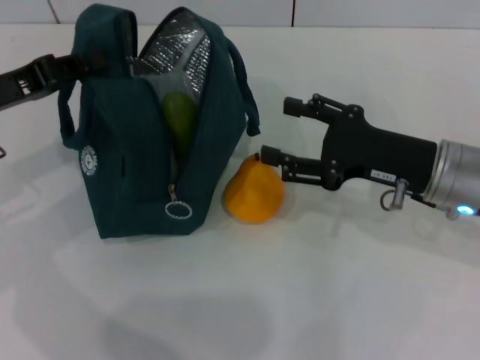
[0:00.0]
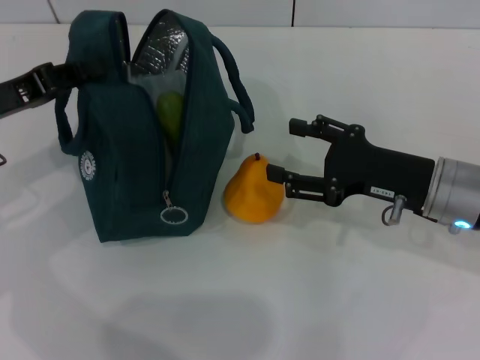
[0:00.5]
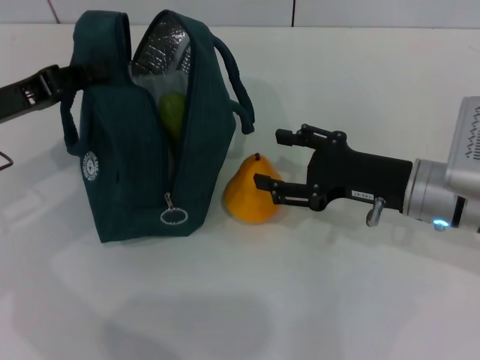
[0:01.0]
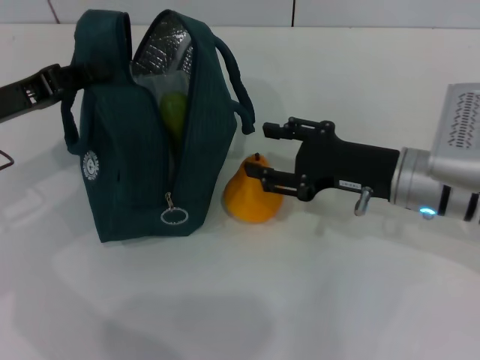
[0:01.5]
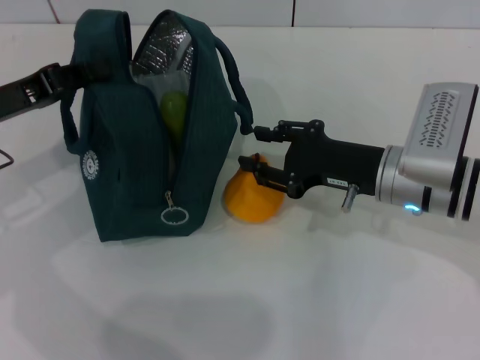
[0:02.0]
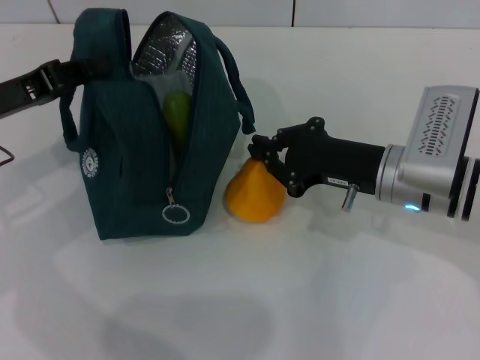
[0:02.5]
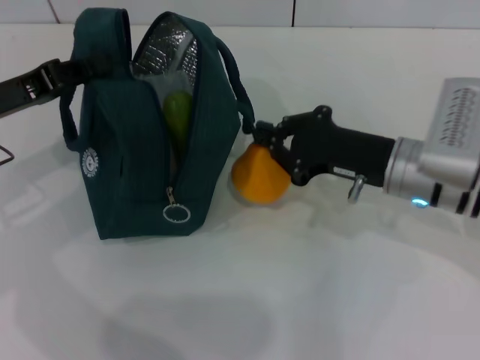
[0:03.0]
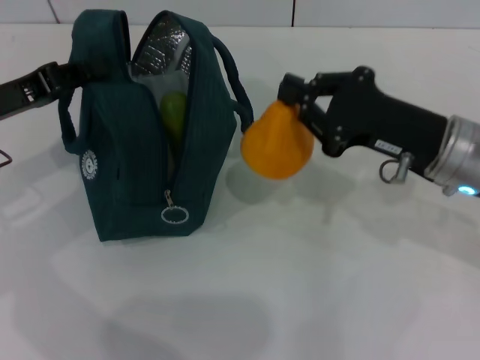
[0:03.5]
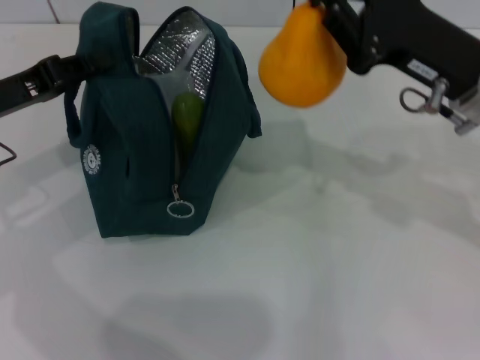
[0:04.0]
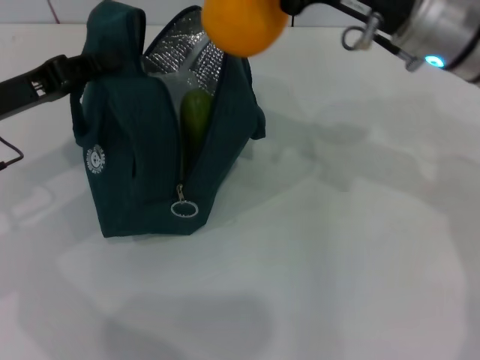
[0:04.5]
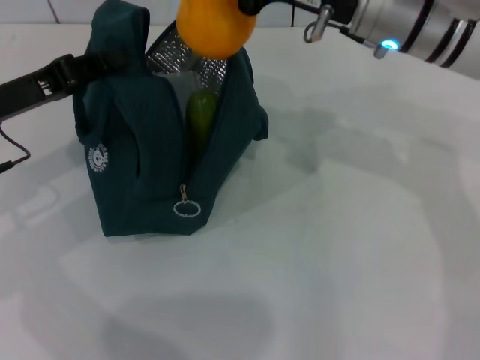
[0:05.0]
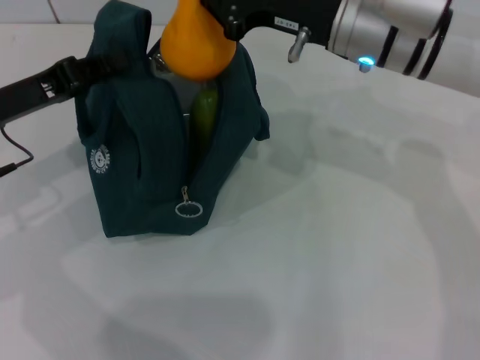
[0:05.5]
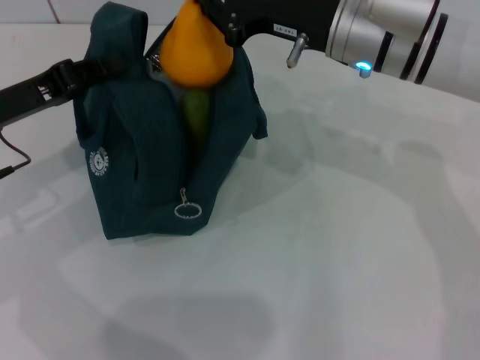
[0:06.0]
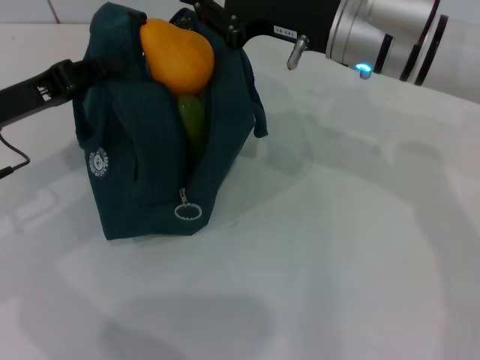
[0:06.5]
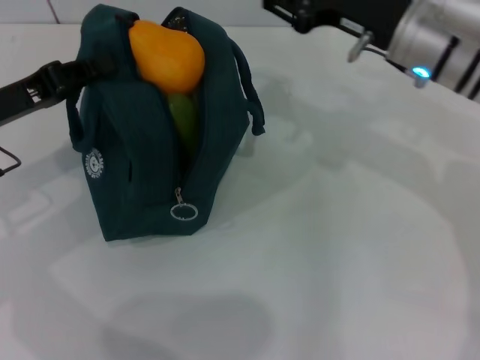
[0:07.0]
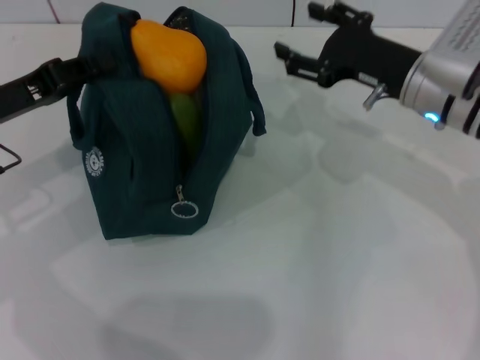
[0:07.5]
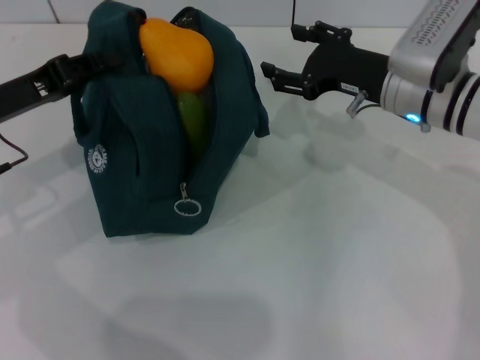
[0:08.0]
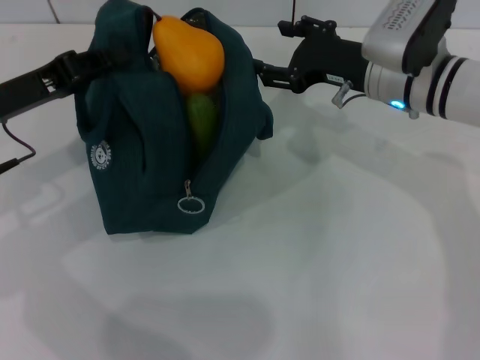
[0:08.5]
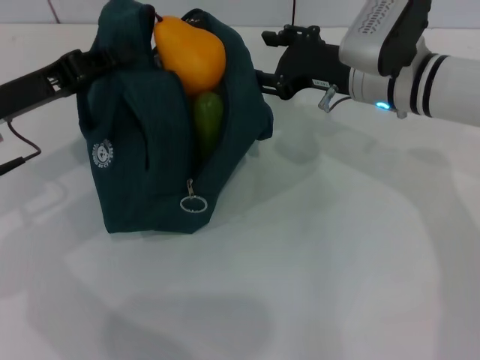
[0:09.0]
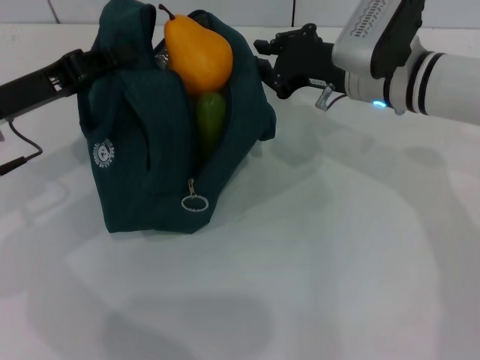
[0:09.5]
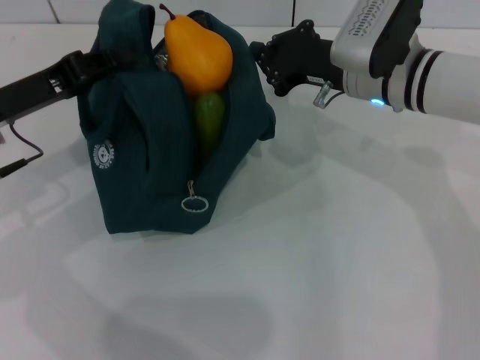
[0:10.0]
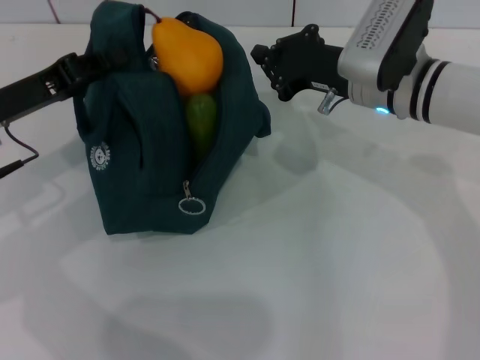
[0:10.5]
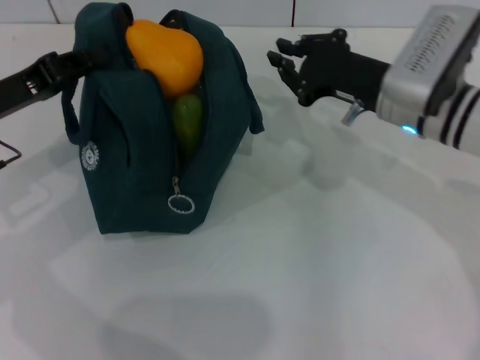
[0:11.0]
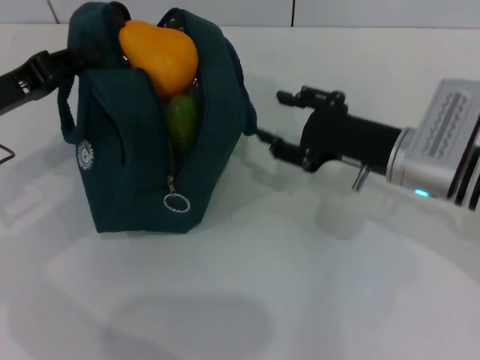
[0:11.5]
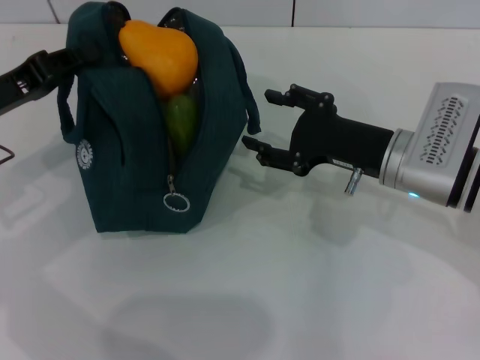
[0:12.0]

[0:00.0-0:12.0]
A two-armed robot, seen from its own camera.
Step, 0:00.0 to 0:02.5: Grab the pear with your right hand.
0:00.0 to 0:02.0: There are only small adjustments of the grippers.
0:02.0 to 0:04.0: The right gripper heads upward, covering approximately 10 cm, and closes.
0:04.0 to 0:06.0: The right gripper heads to the left and forward, covering roughly 10 cm.
0:06.0 to 0:08.0: The right gripper moves downward and to the right, about 10 cm, and opens.
0:08.0 to 0:10.0: The right gripper closes.
0:10.0 to 0:12.0: The right gripper is displaced backward by approximately 10 cm, and opens up.

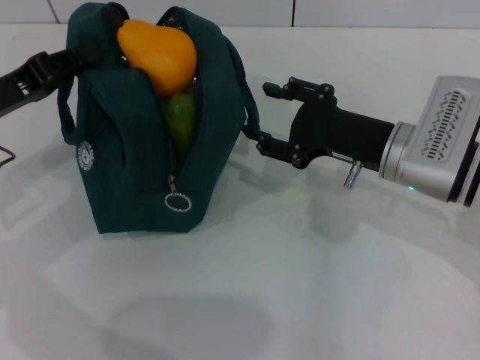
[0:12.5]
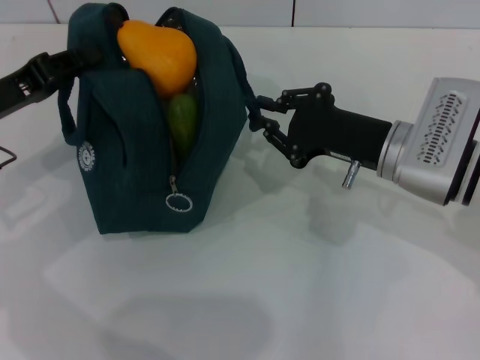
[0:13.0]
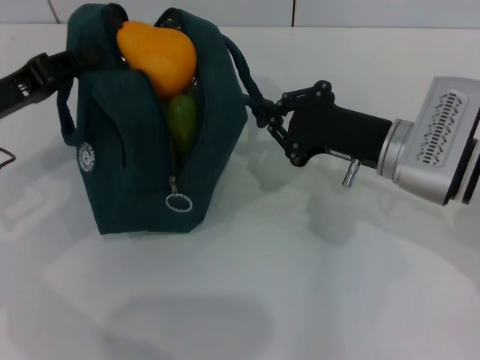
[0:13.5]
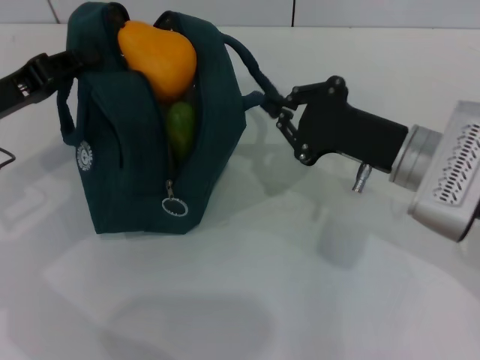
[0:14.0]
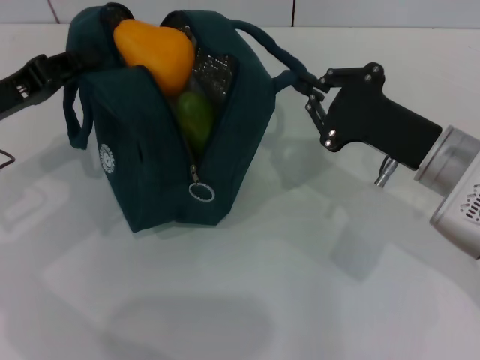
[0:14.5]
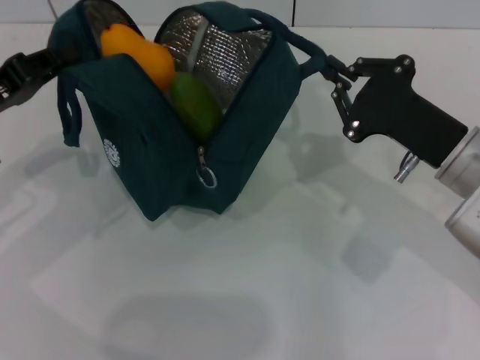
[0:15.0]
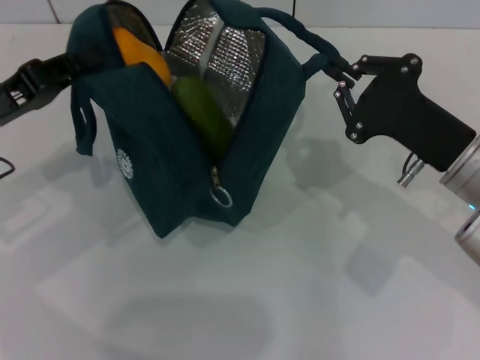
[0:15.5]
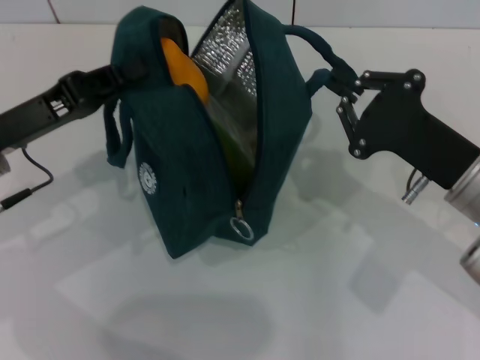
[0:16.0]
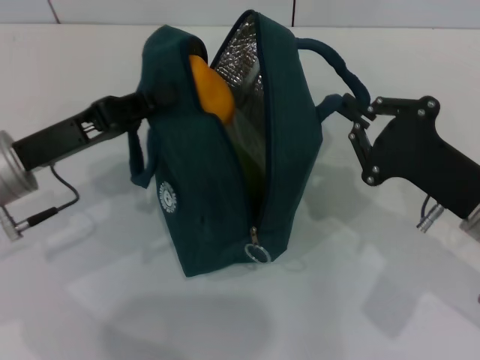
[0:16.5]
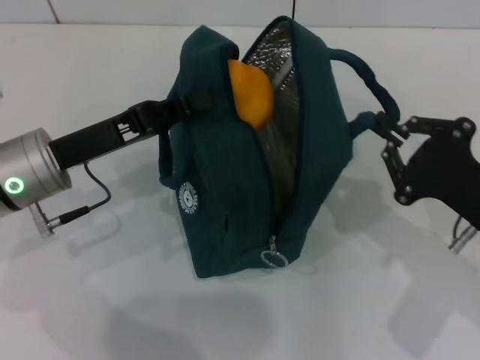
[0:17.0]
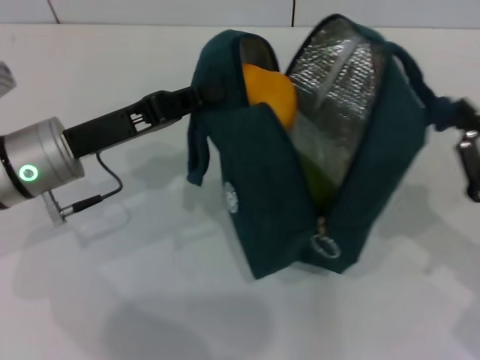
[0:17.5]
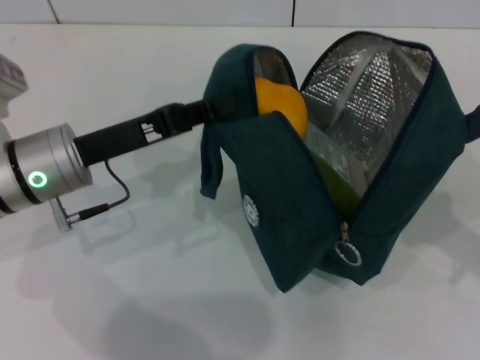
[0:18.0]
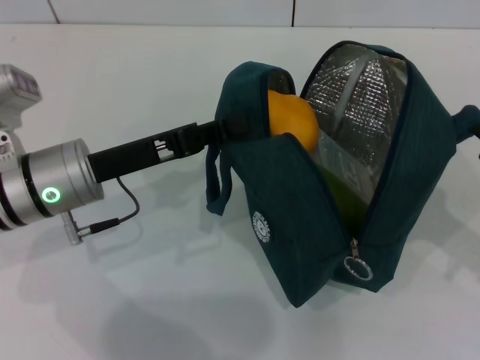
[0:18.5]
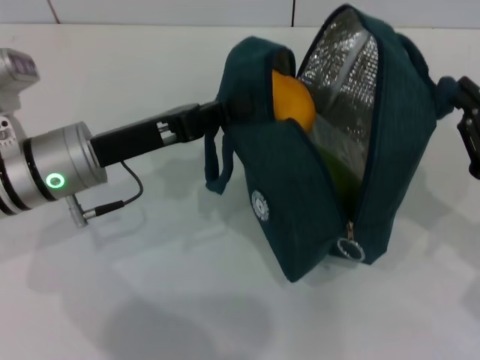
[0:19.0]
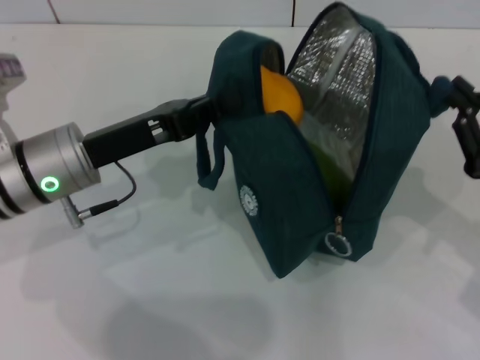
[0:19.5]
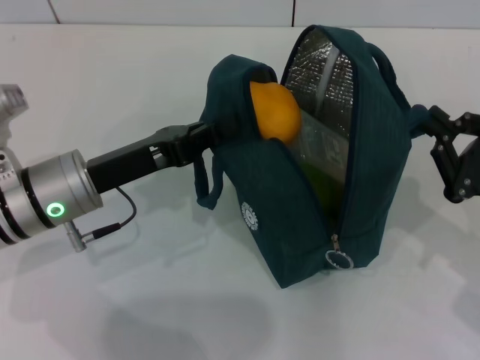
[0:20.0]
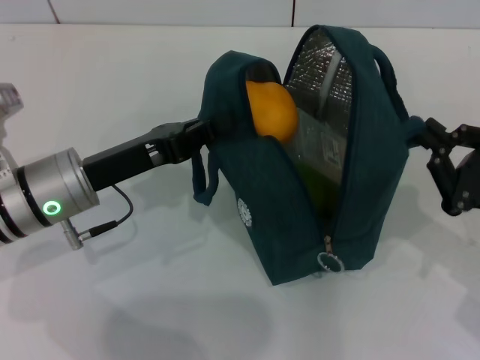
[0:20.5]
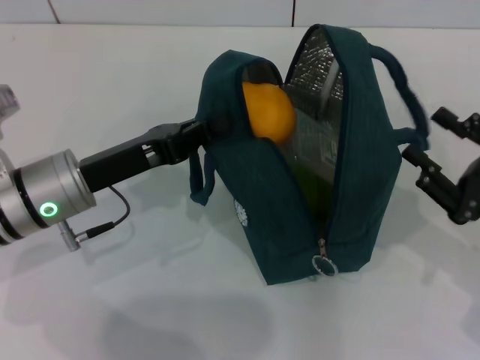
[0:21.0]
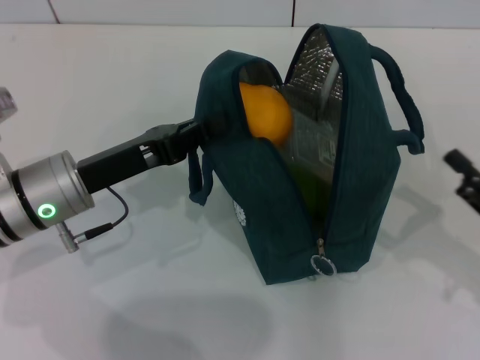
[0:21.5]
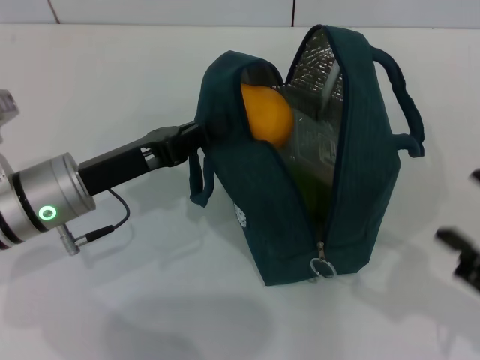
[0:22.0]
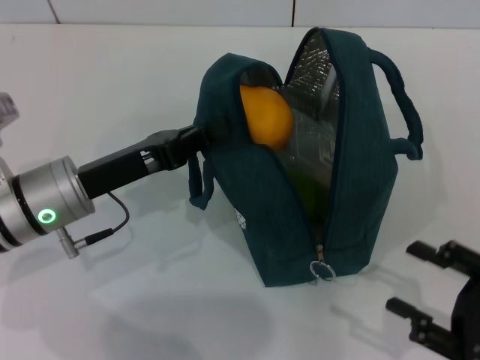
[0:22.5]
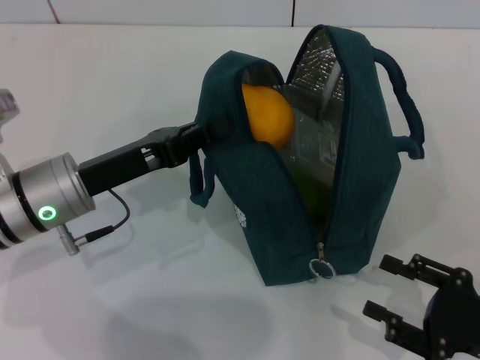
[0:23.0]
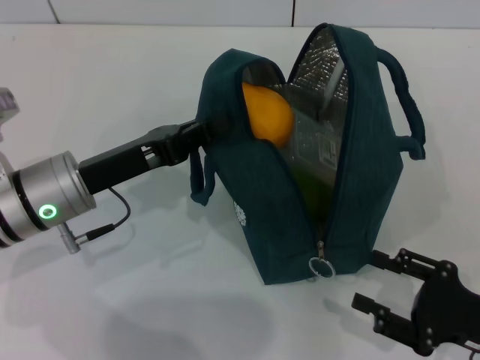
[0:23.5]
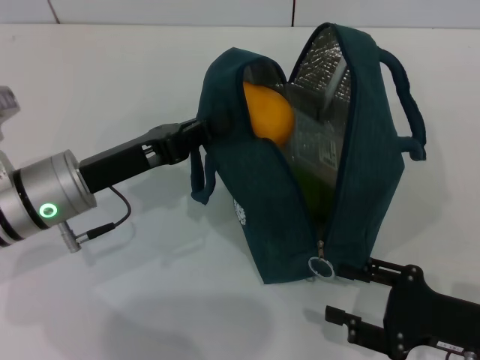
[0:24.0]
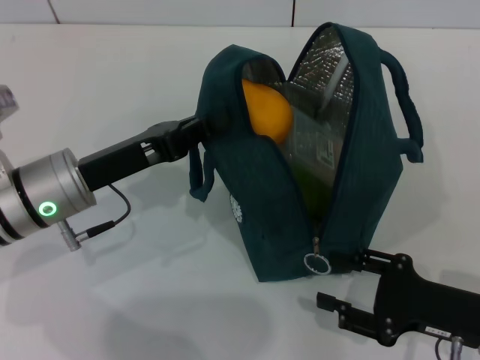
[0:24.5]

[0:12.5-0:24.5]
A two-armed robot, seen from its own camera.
Step, 0:12.5 to 0:20.5: Hold the lunch bag with your right hand.
0:12.5 to 0:14.5: The right gripper closes its fingers.
0:14.5 to 0:16.5: The left gripper travels to the right by some 5 cm. The right gripper goes roughly 5 cm backward.
0:16.5 to 0:18.5: The left gripper heads to the right, covering about 5 cm. Meanwhile the right gripper travels to the right by approximately 10 cm.
0:20.5 to 0:22.5: The right gripper shifts roughly 10 cm backward, and opens up.
0:22.5 to 0:24.5: The right gripper moves approximately 5 cm.

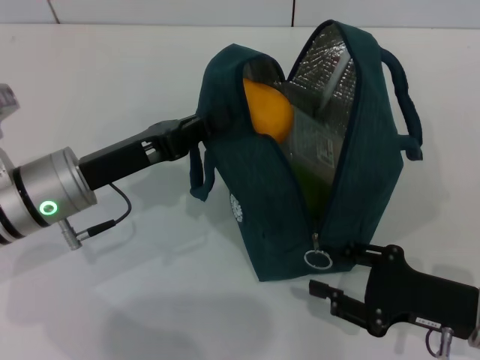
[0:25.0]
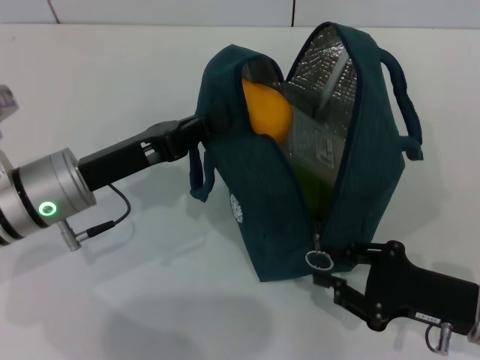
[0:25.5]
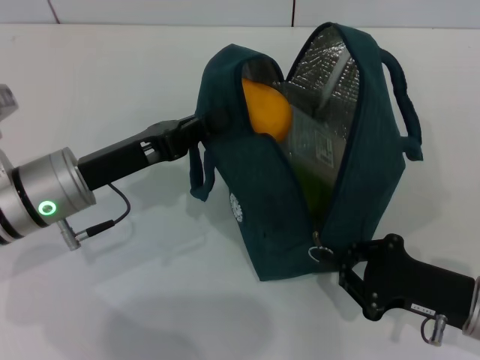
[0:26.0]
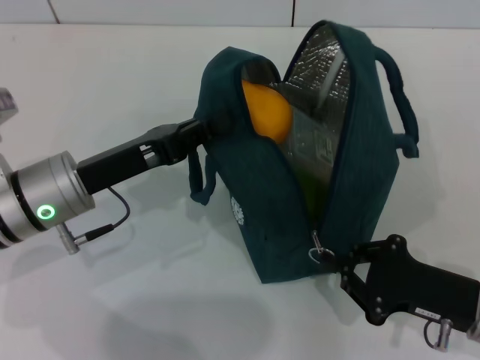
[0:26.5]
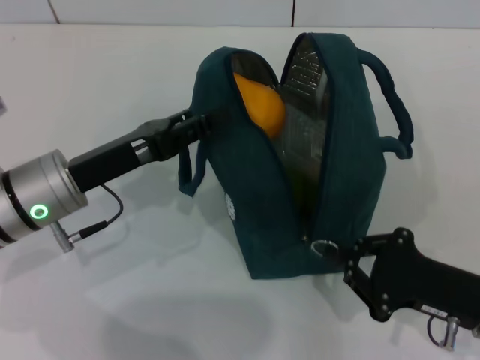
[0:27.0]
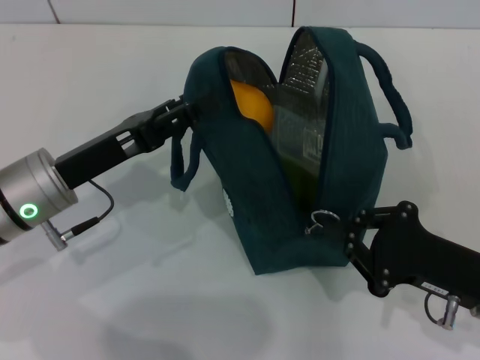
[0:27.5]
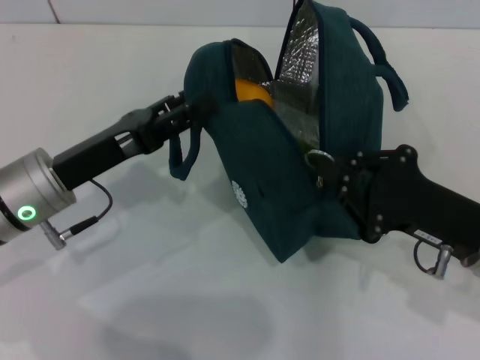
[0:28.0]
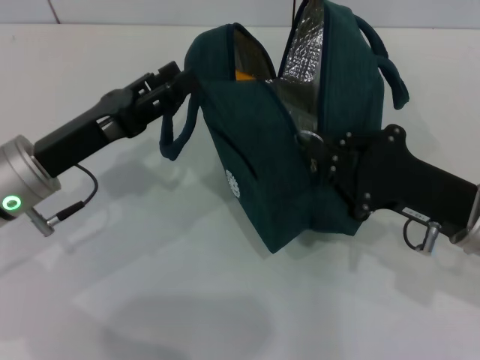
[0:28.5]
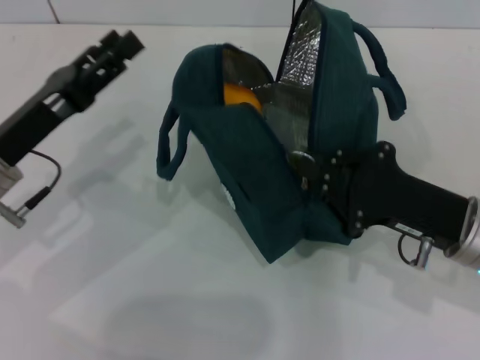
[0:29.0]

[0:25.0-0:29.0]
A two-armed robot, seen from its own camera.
Step, 0:25.0 to 0:28.0: Hold the lunch bag with your left hand.
0:25.0 to 0:27.0: The right gripper closes up.
0:27.0 to 0:29.0: The right gripper moves approximately 5 cm. Meanwhile the left gripper opens its fingers.
